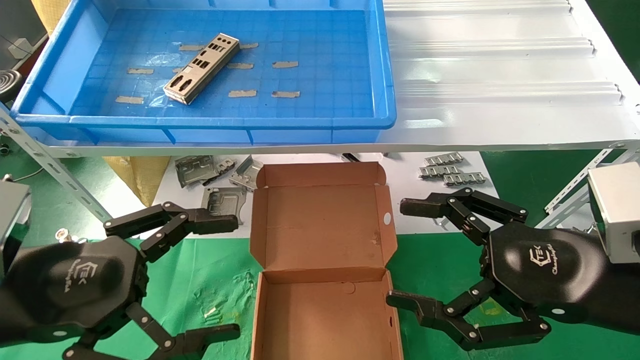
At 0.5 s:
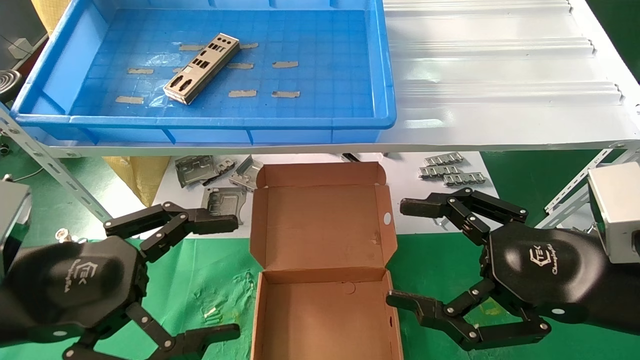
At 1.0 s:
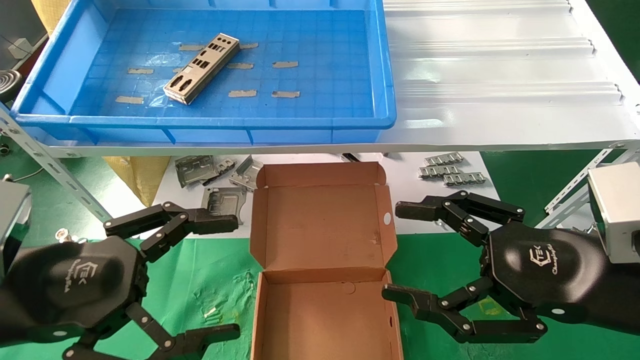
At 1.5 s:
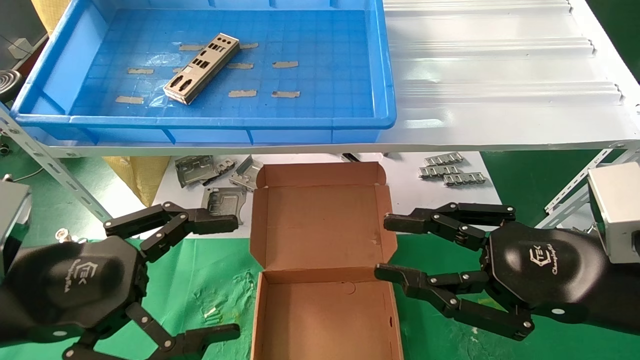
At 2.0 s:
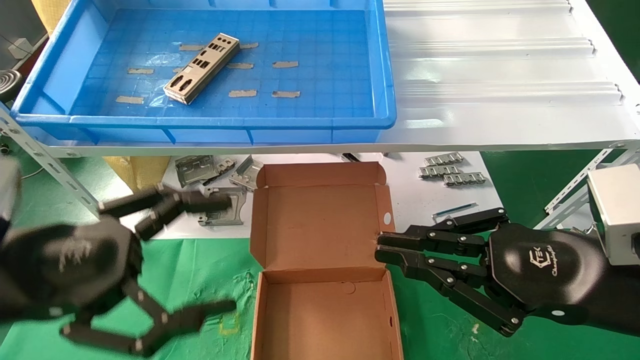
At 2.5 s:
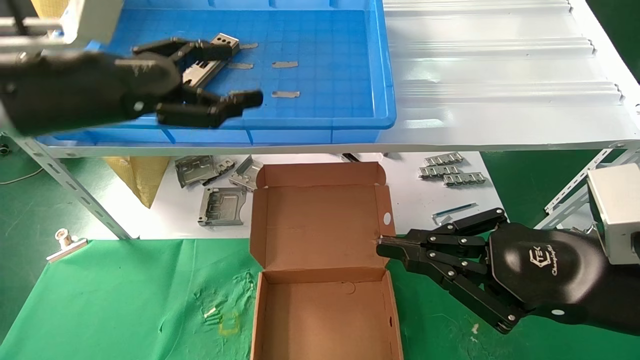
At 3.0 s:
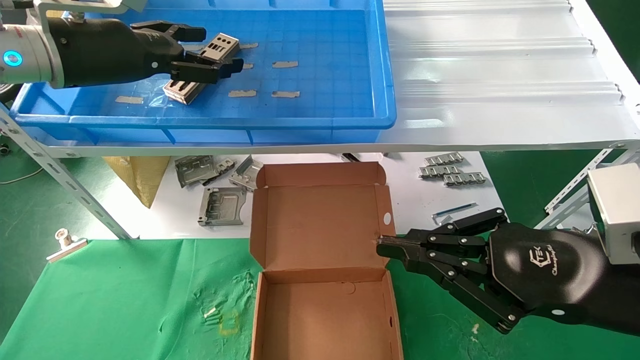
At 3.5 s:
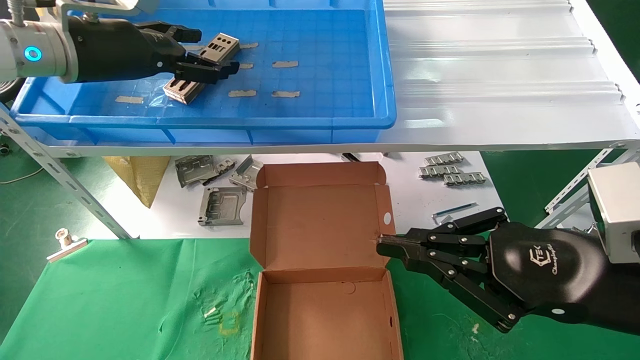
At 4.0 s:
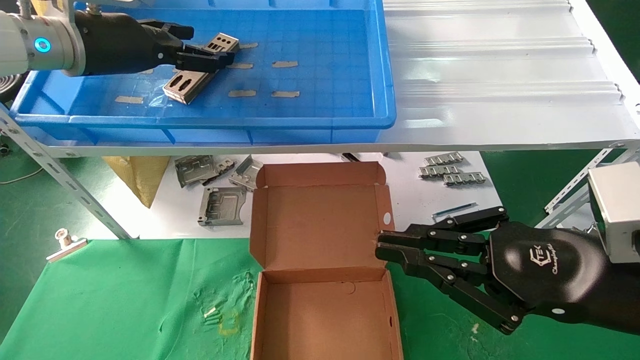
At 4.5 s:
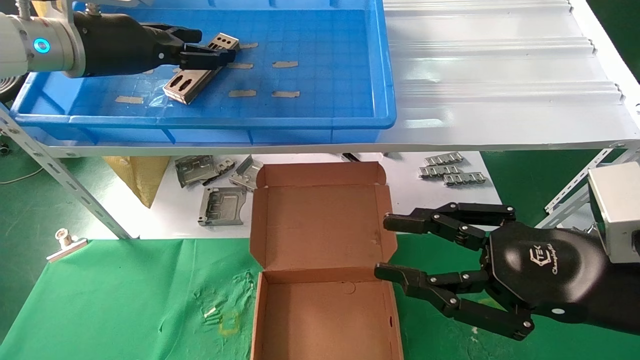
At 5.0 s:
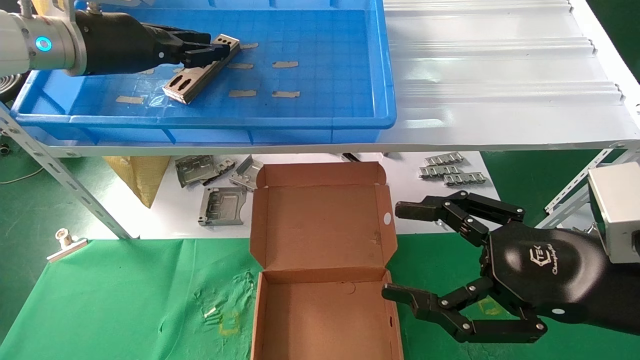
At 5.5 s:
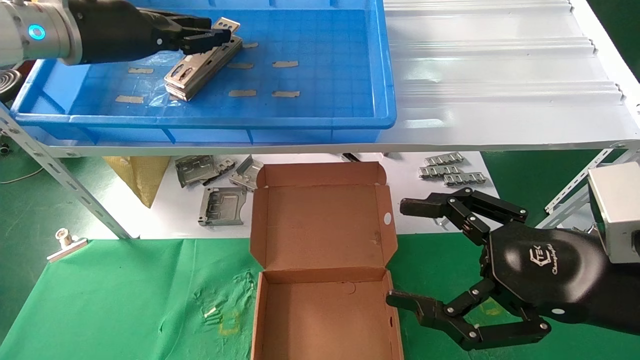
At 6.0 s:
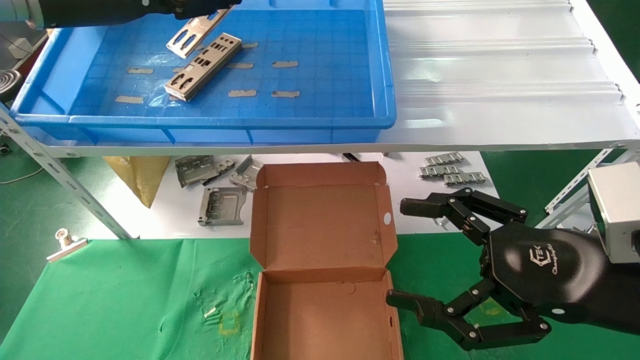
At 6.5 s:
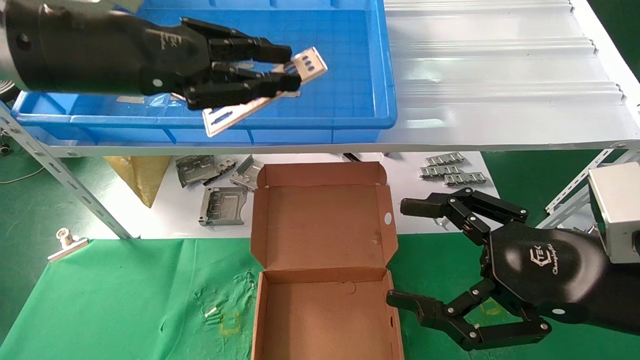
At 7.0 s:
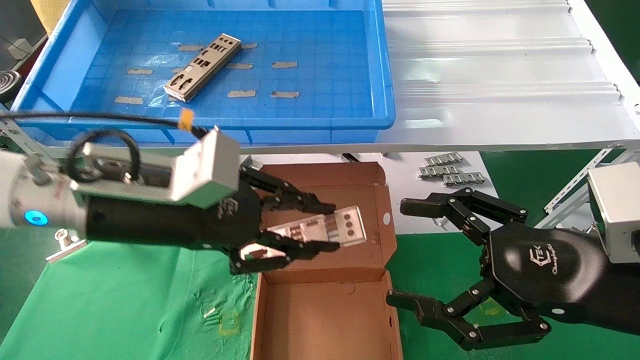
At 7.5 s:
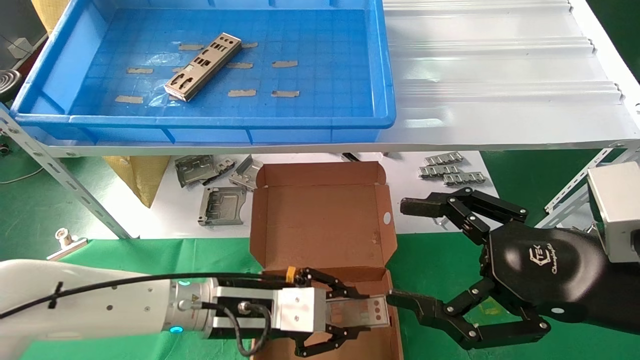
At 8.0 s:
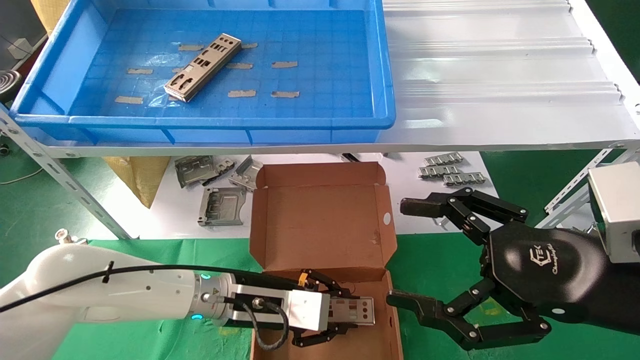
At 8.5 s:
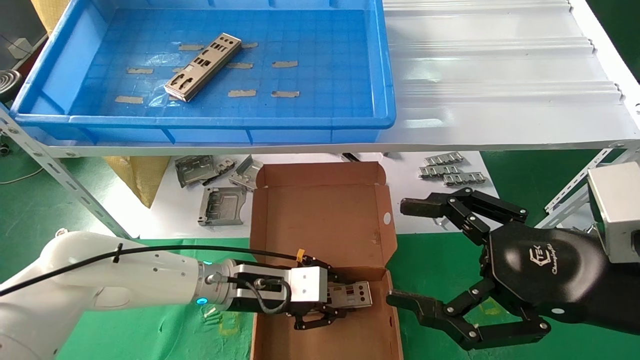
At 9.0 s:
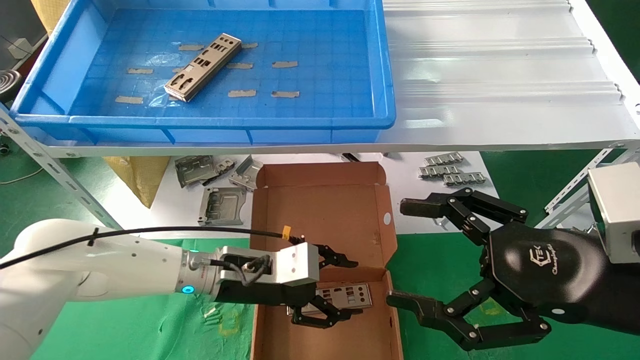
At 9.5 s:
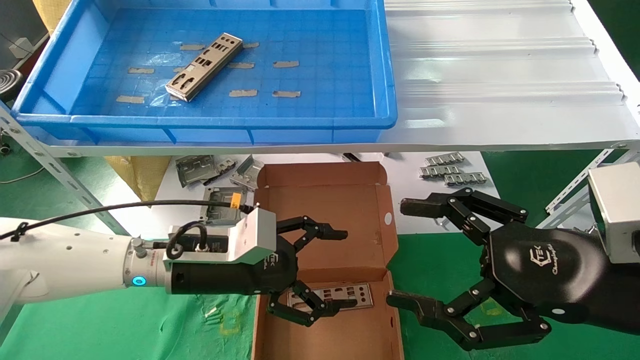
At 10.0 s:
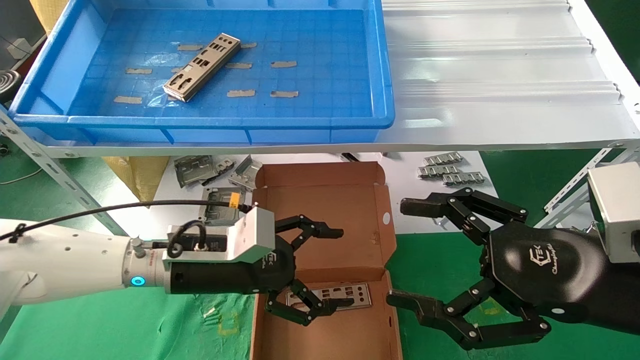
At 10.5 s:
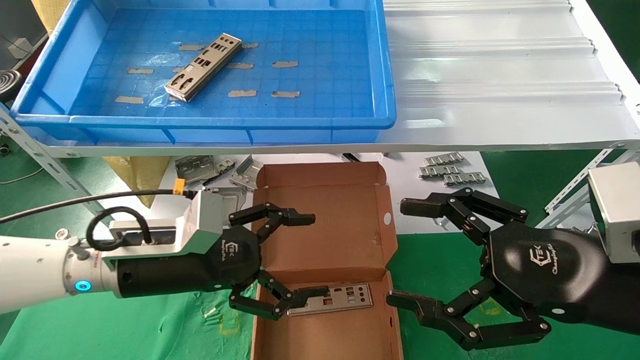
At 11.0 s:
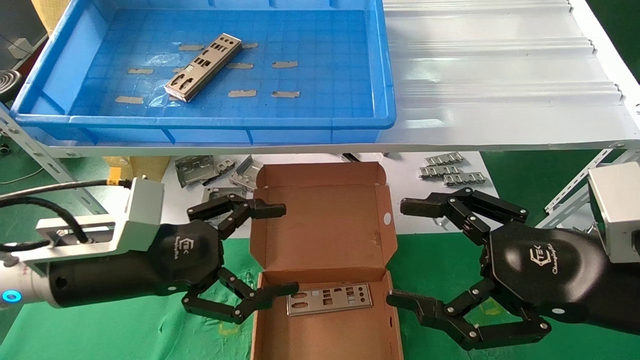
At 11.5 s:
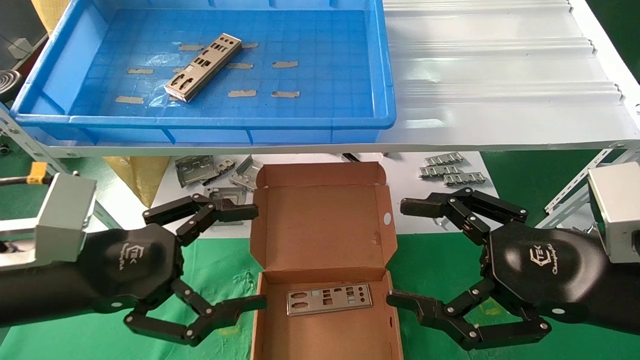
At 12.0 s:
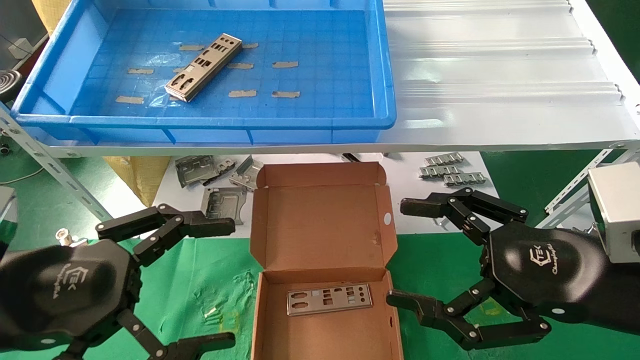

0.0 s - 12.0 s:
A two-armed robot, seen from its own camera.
Task of the whole recording: pick up the parts on the tray and put them in the cardboard box.
Step, 2.5 s - 5.0 s: Pick up the IO bracket from the container box.
Step, 5.5 s - 8.5 s: Place the IO bracket into the ingredient slot.
0.0 s - 2.0 s: The right gripper closes up.
2.0 s - 4.0 s: The left gripper goes about 25 cm forward and upward.
4.0 s - 6.0 s: The right gripper opens its fingers. Meanwhile the left gripper is displaced backward by approximately 5 cm, and closes its fingers.
6.0 s - 8.0 s: The left gripper heads downward and to the right, covering about 40 cm.
8.0 s - 10.0 s: The left gripper heads upward and to the left, covering roughly 10 cm, and opens up.
10.0 s - 12.0 s: The left gripper shifts some 20 cm backward, to the left and upward.

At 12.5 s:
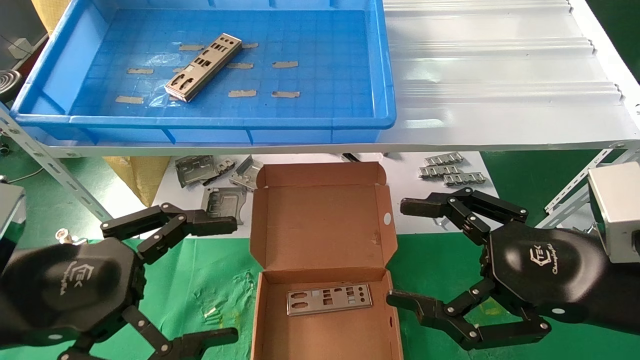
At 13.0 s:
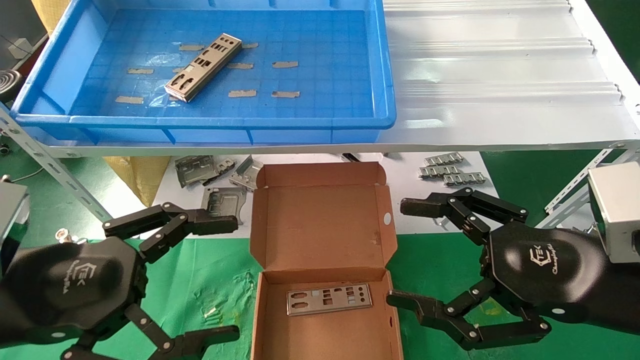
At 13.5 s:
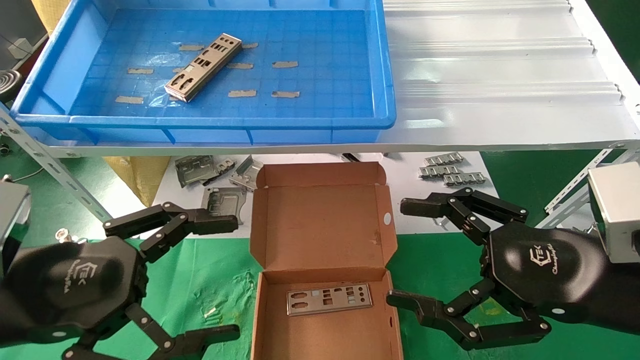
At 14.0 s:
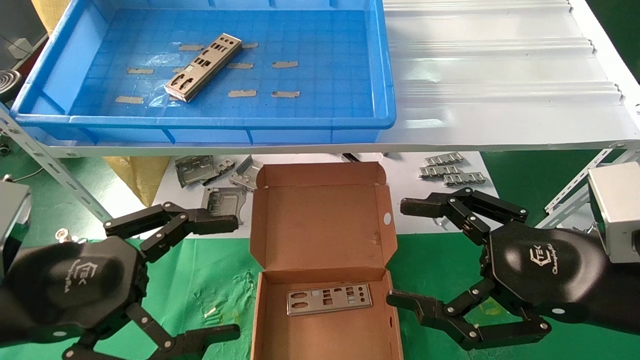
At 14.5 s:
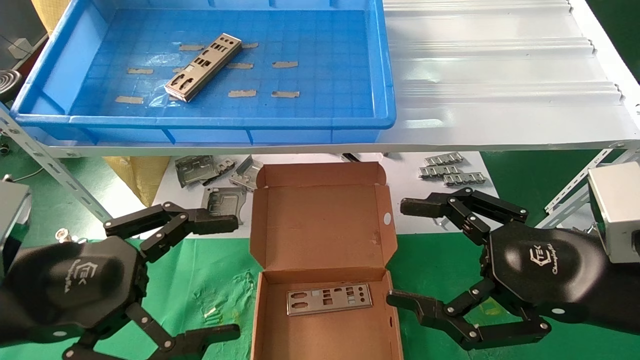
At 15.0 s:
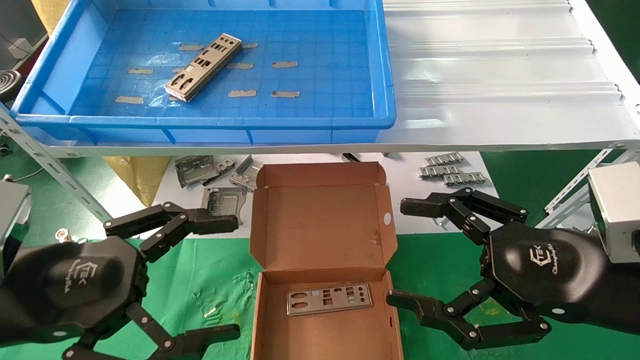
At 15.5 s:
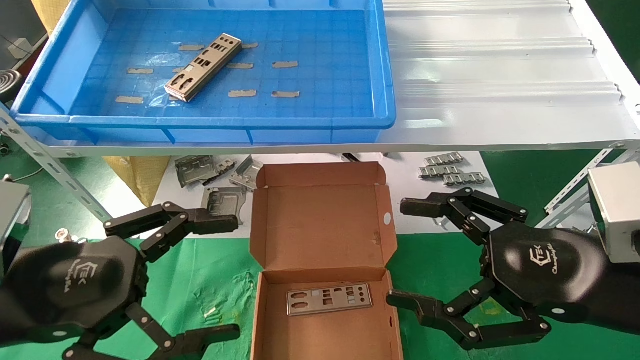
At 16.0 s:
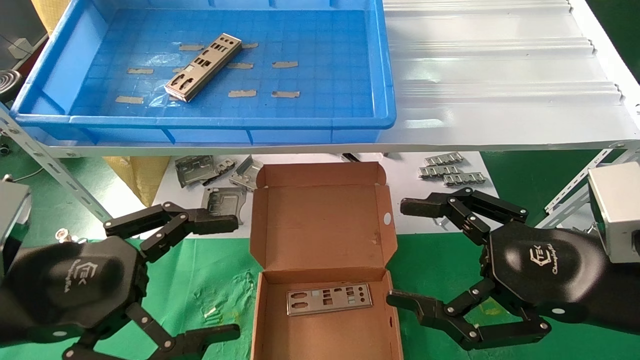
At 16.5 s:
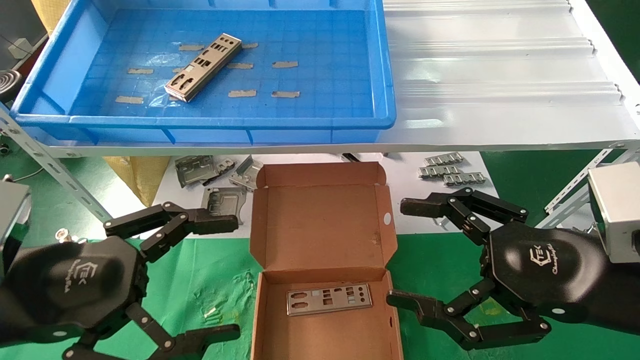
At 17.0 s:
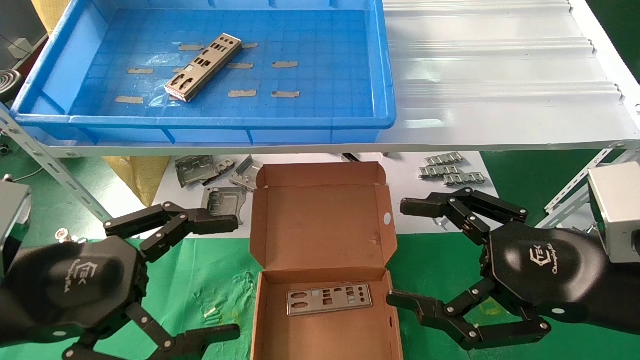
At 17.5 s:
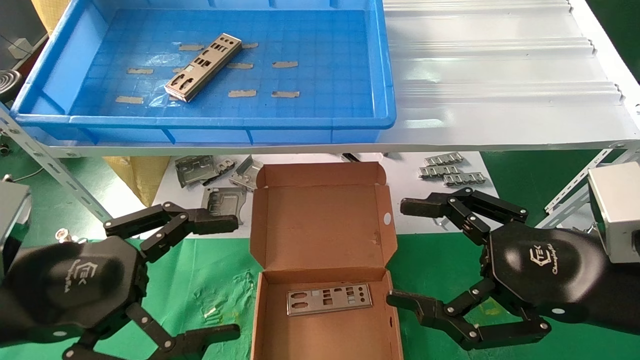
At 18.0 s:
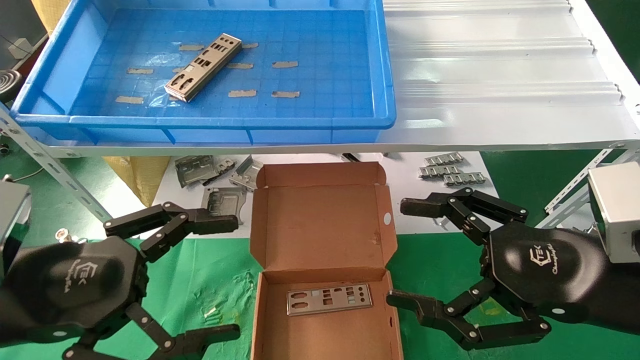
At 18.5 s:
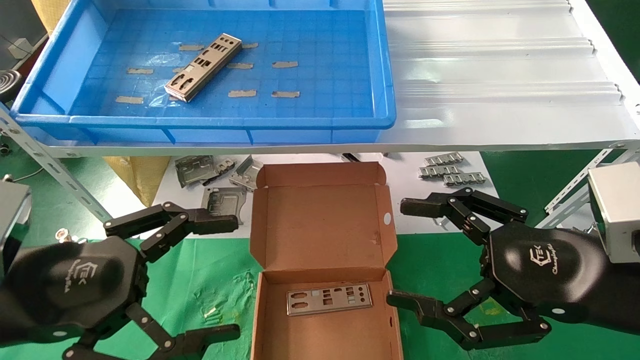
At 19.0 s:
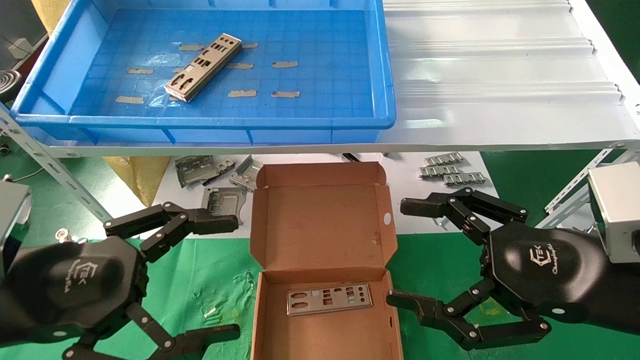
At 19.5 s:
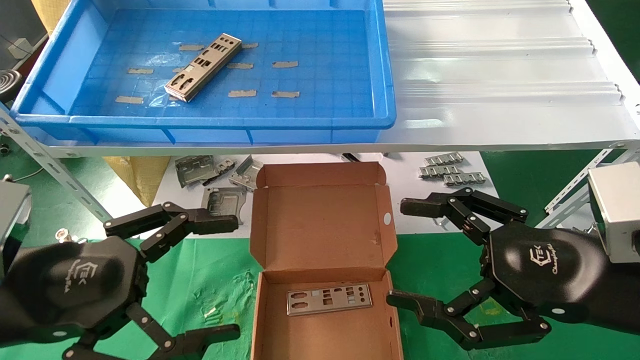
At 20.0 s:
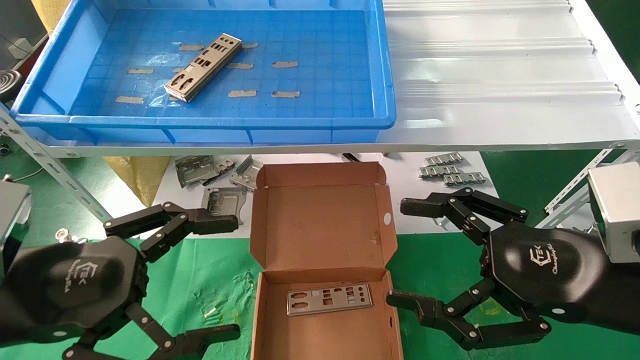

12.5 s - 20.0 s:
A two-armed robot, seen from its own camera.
Task of the whole recording: pick up the parts on the tray and put them in the cardboard box.
12.5 s - 20.0 s: Both grippers stay put.
